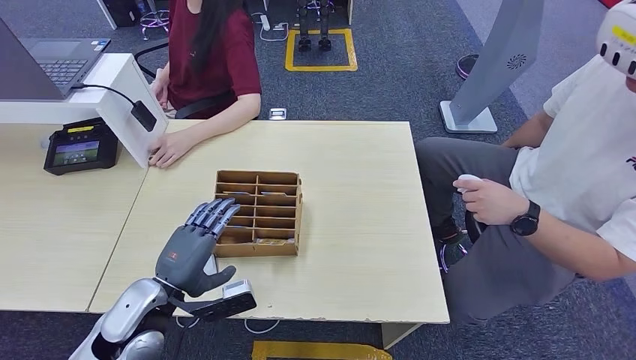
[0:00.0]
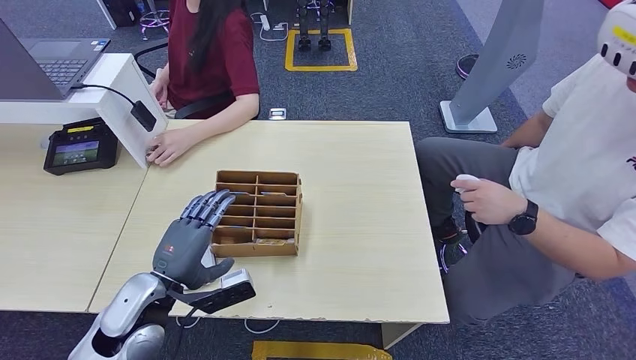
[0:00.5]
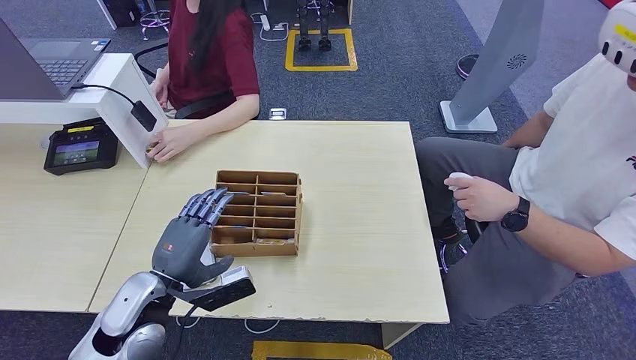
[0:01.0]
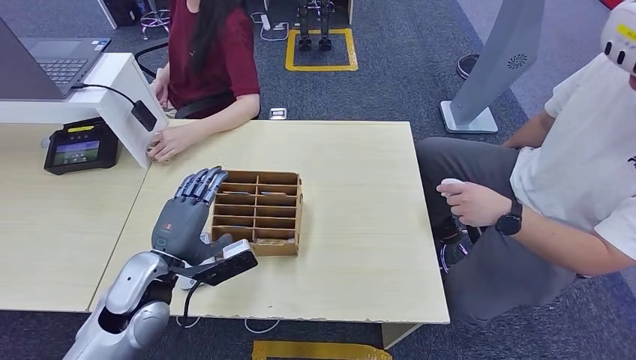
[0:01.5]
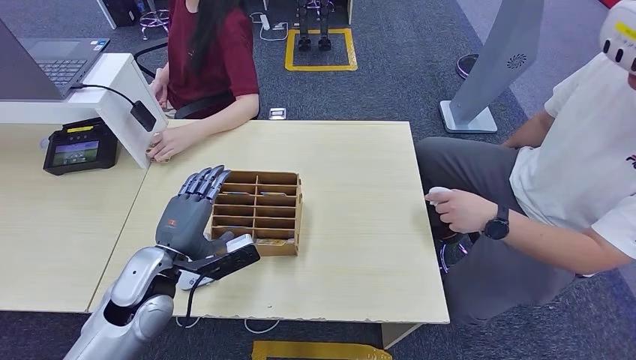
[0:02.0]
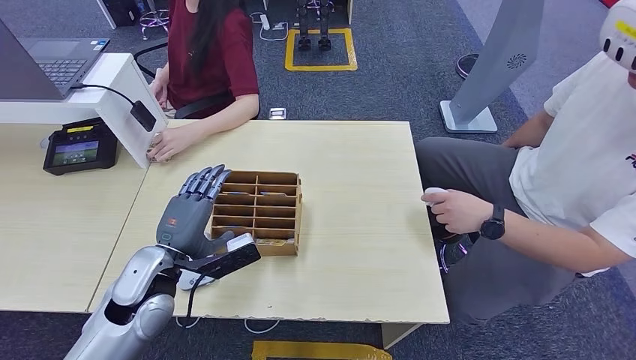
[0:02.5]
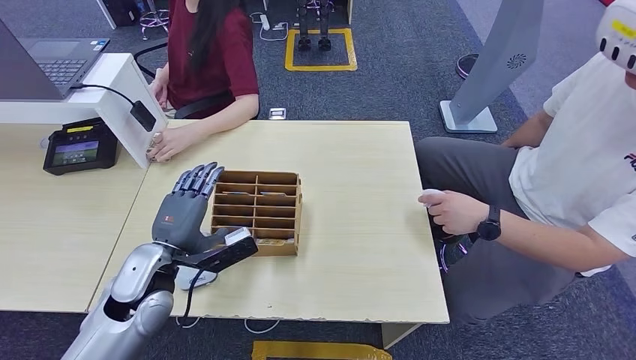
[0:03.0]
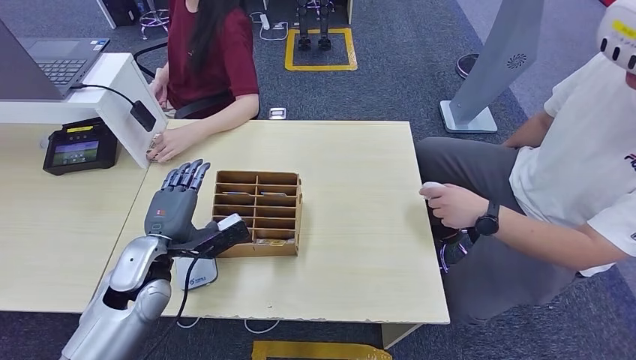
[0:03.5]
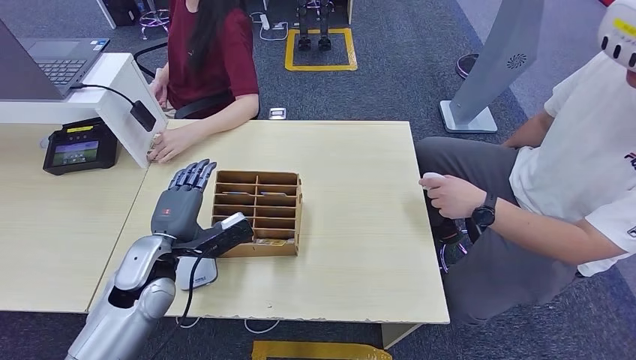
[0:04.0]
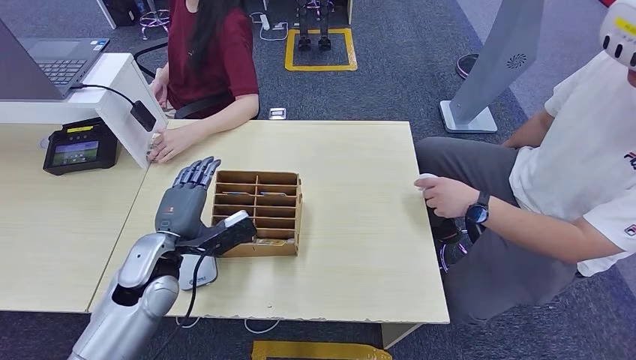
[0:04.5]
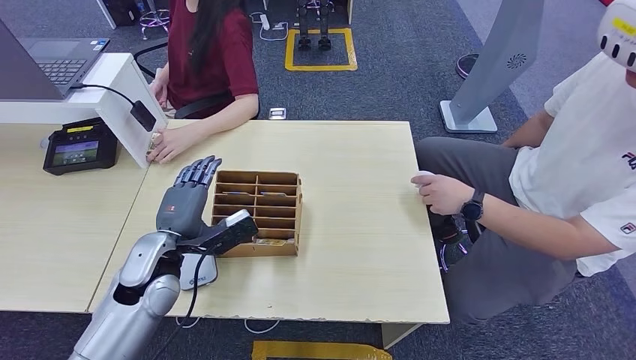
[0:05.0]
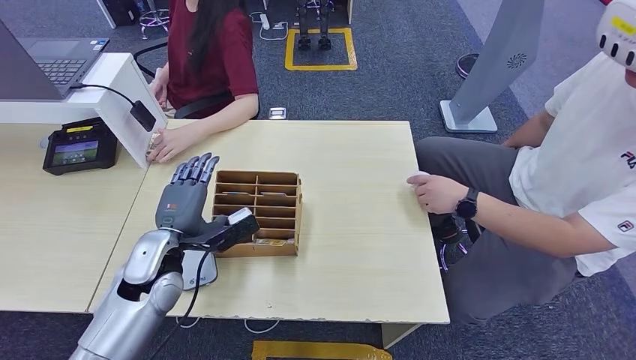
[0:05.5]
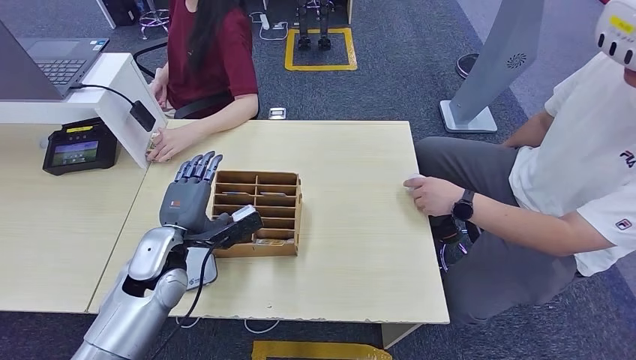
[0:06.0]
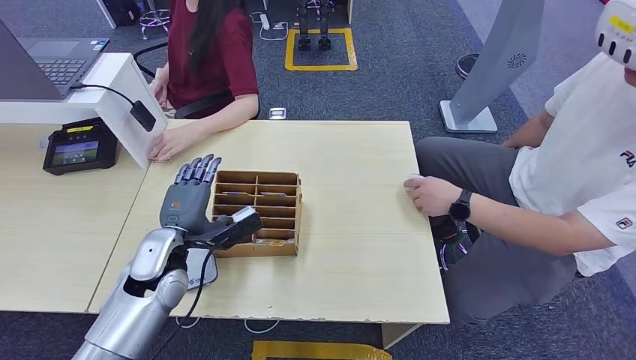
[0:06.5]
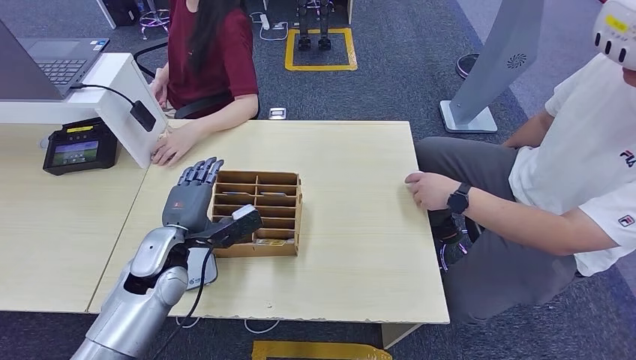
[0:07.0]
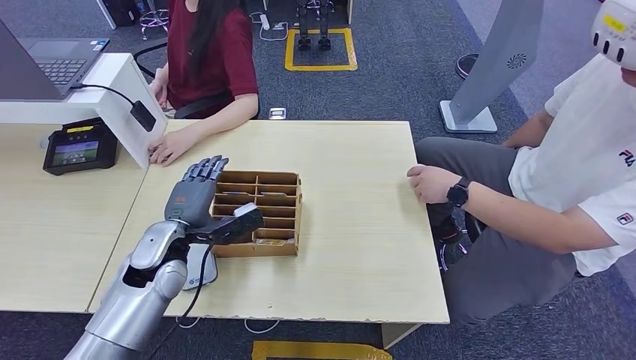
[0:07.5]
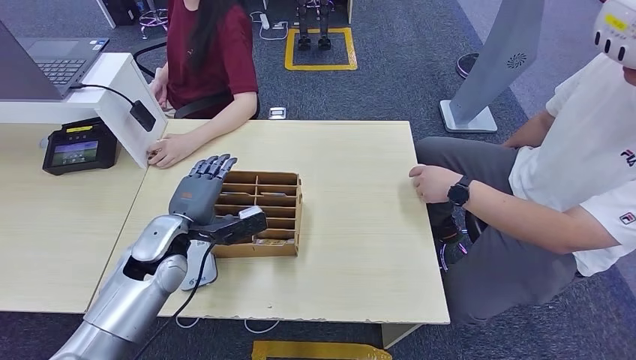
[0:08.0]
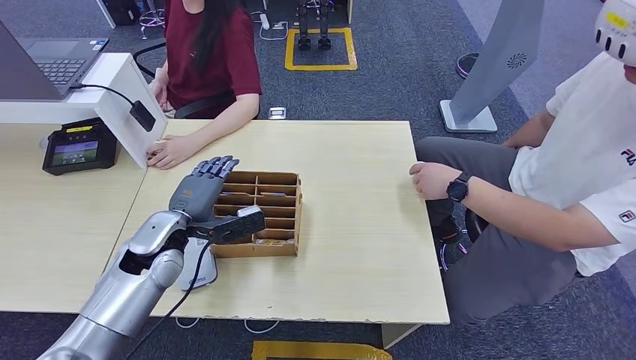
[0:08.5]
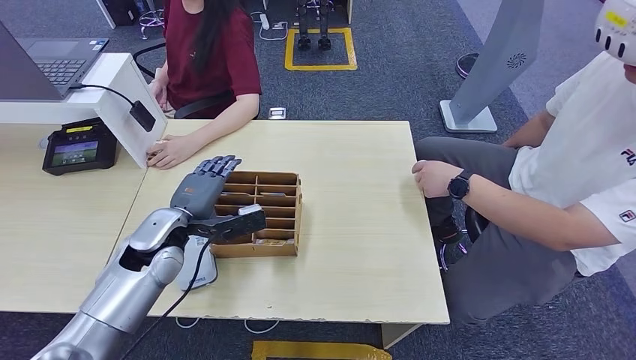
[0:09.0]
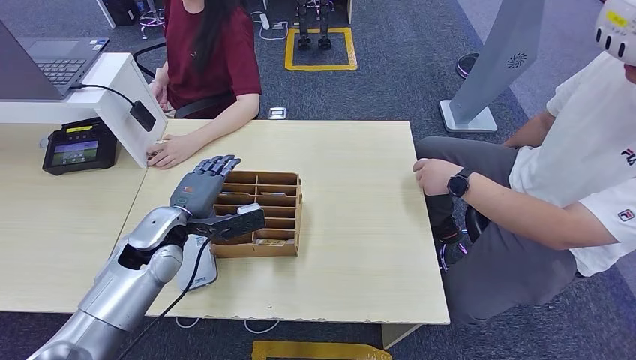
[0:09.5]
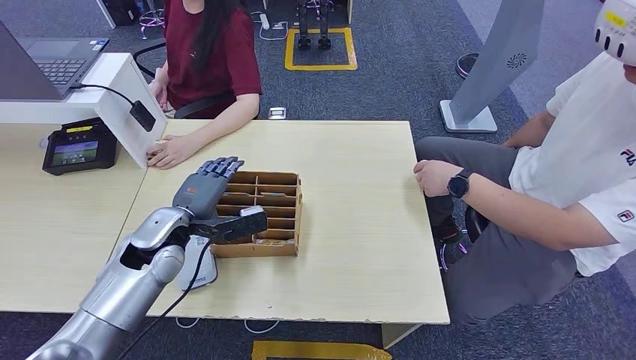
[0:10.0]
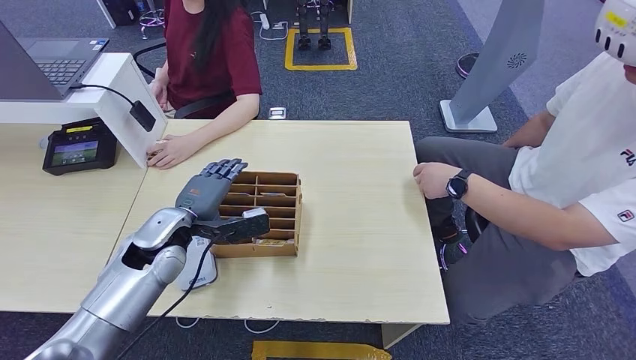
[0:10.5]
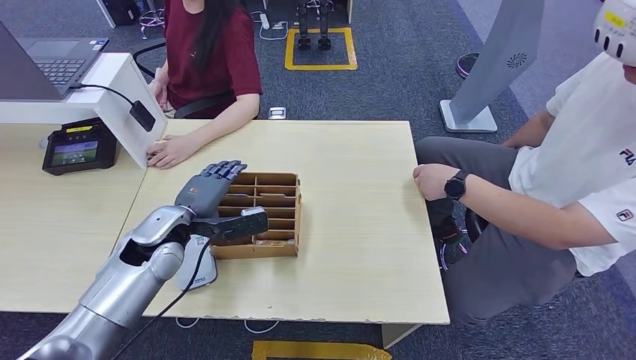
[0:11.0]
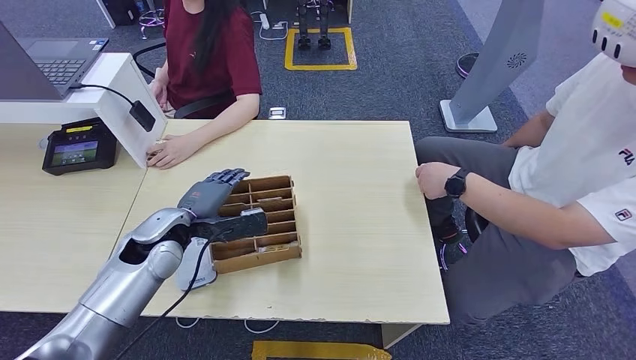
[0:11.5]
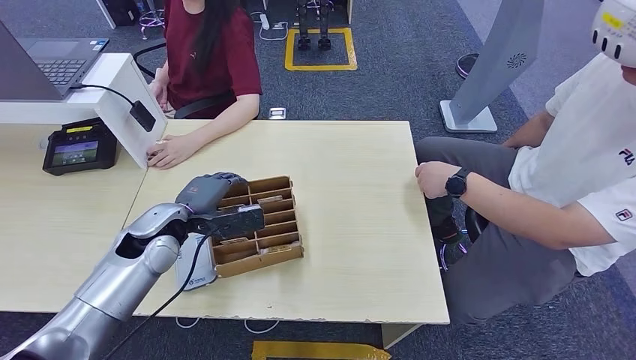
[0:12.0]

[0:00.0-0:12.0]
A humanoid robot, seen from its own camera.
0:00.0 to 0:02.0: The left hand ends up approximately 5 cm from where it was.
0:02.0 to 0:06.0: The hands move only a little.
0:06.0 to 0:10.0: The hands make only small movements.
0:10.0 to 0:12.0: The hands move only a little.

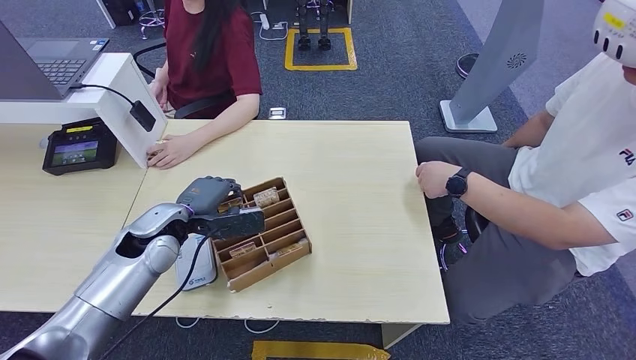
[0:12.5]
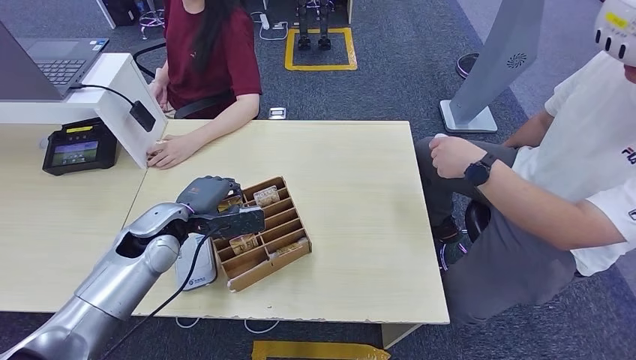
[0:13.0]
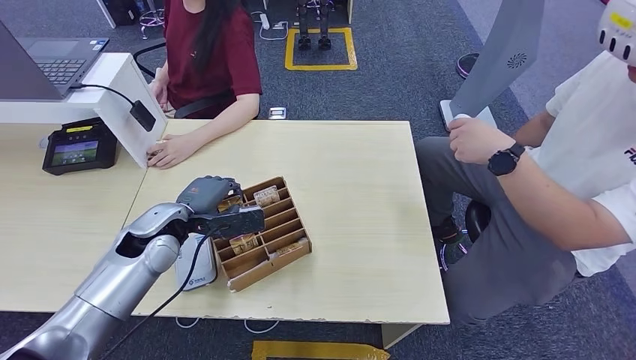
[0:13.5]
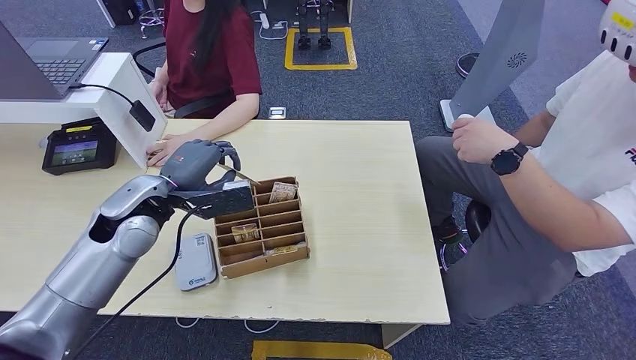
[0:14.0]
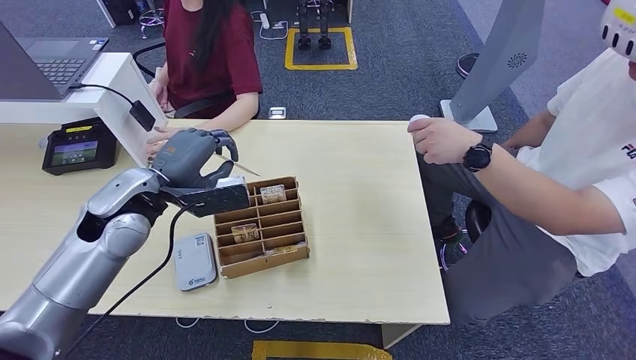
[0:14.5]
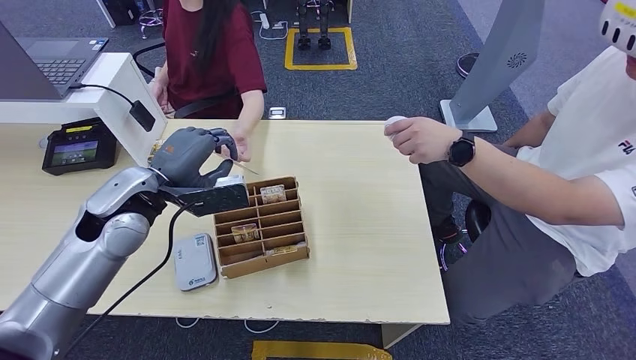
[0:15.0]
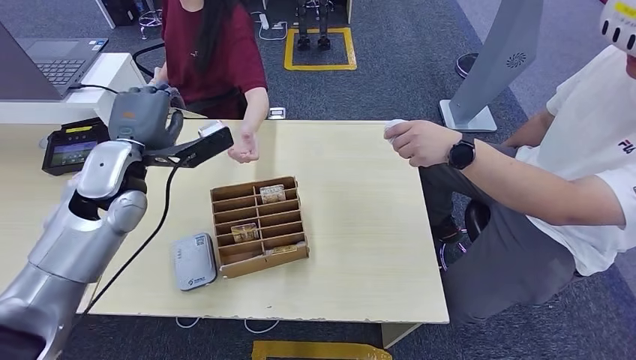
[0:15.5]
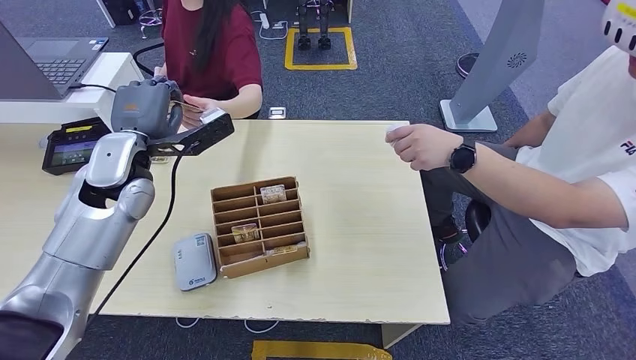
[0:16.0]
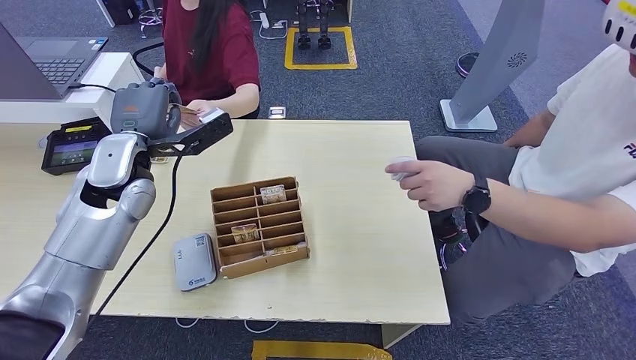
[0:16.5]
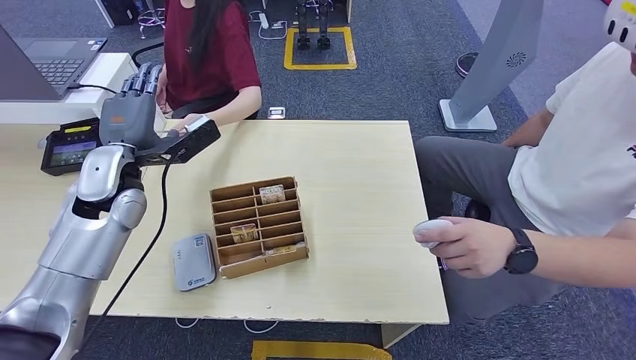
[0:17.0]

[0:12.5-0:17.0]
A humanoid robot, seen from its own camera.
Step, 0:14.5 to 0:17.0: Hand the room key to the person.
0:12.5 to 0:14.5: The left hand travels upward by approximately 10 cm.
